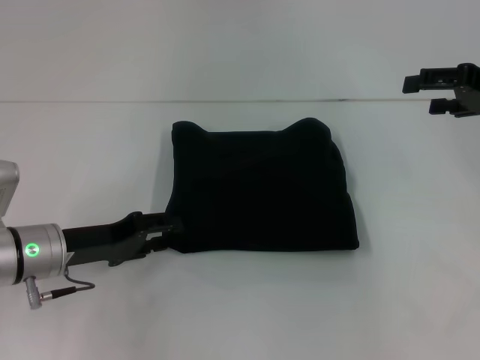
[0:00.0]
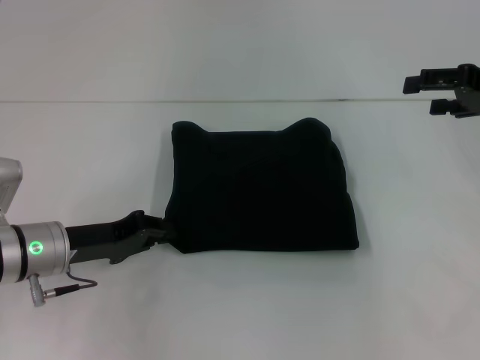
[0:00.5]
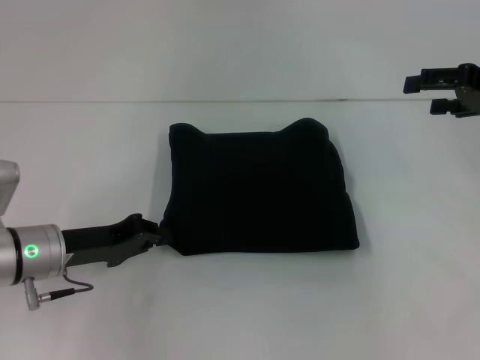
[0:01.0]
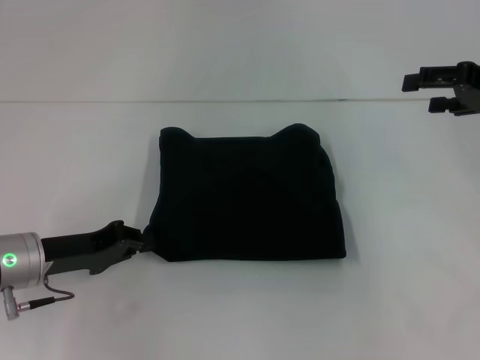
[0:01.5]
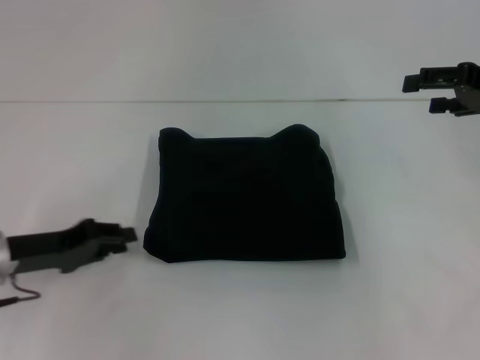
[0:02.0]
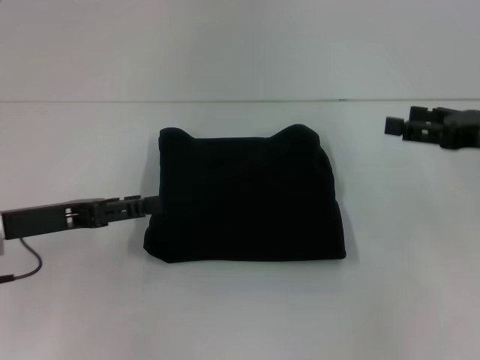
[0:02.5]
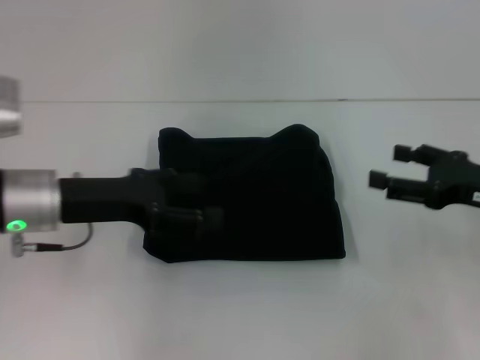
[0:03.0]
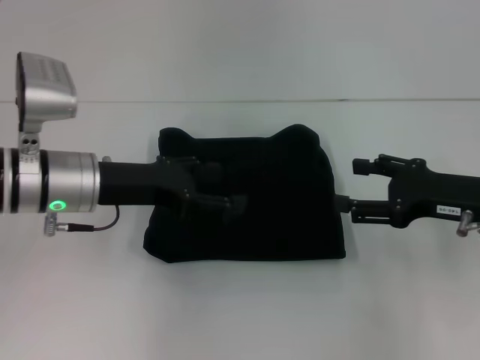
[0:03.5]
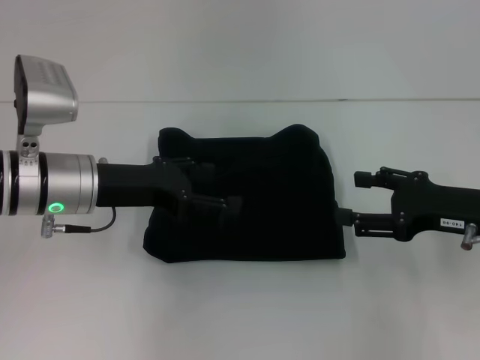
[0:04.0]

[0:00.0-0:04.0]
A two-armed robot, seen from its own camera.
0:00.0 to 0:02.0: The left gripper moves about 5 cm, and closes.
0:02.0 to 0:04.0: The left gripper moves to the right, upward and forward, some 10 cm, and opens its fingers. Meanwhile the right gripper heads downward, backward and to the left, covering about 15 cm.

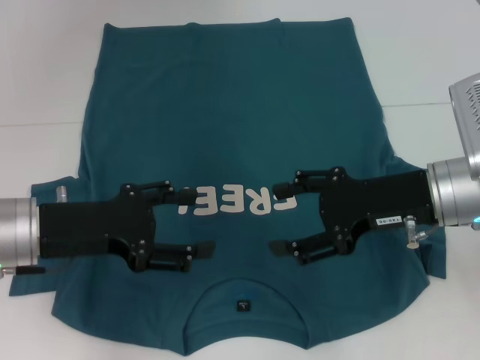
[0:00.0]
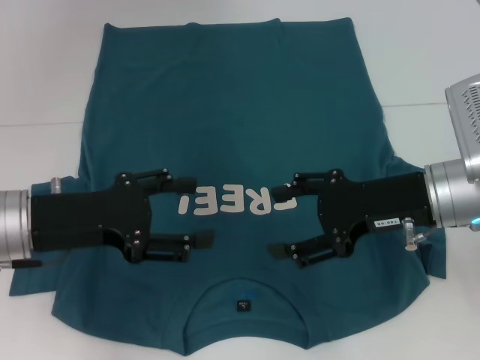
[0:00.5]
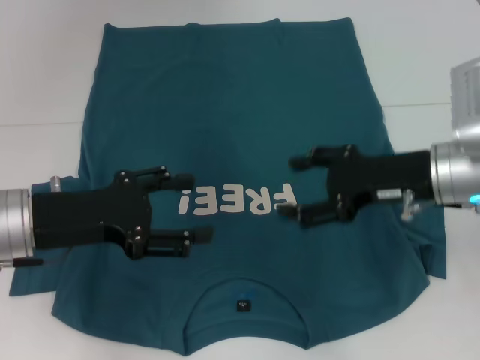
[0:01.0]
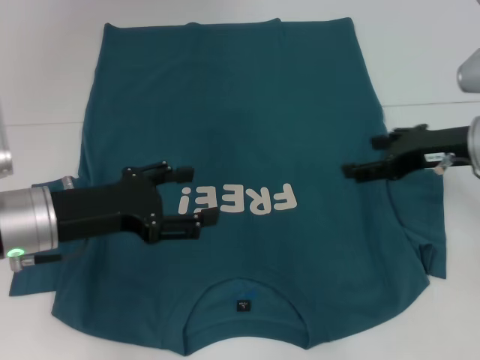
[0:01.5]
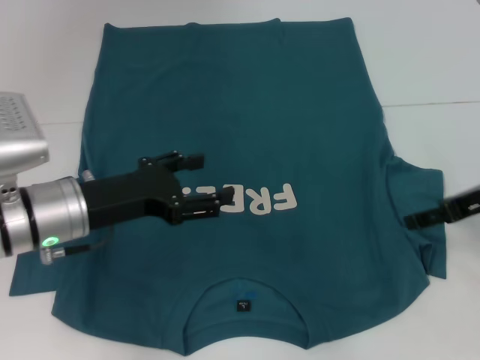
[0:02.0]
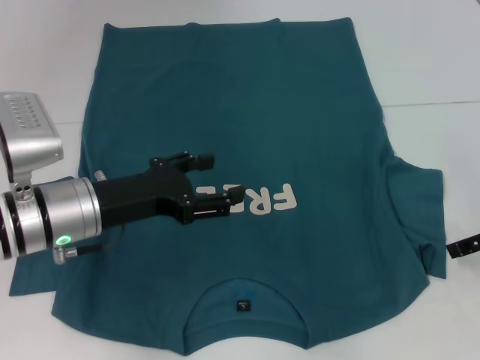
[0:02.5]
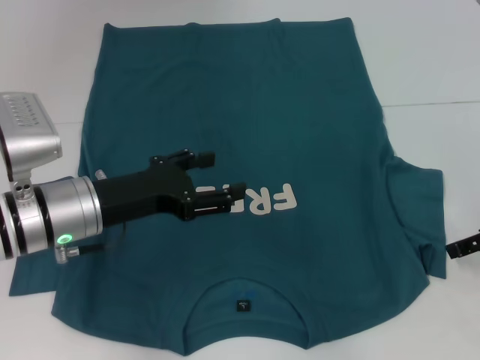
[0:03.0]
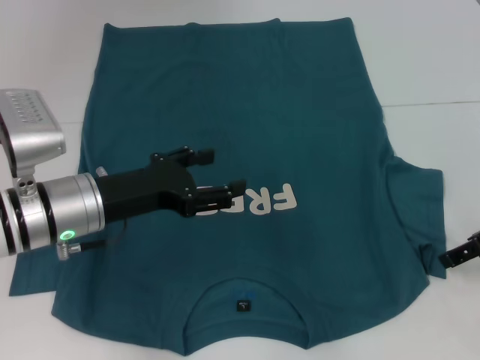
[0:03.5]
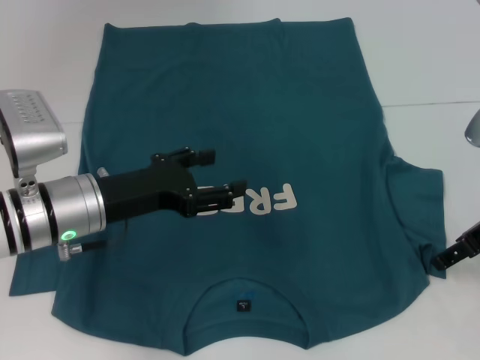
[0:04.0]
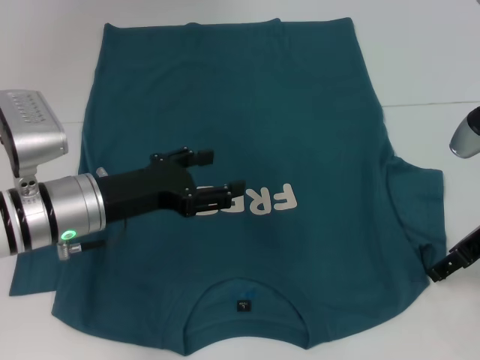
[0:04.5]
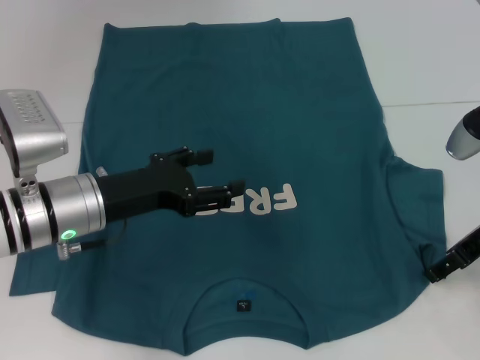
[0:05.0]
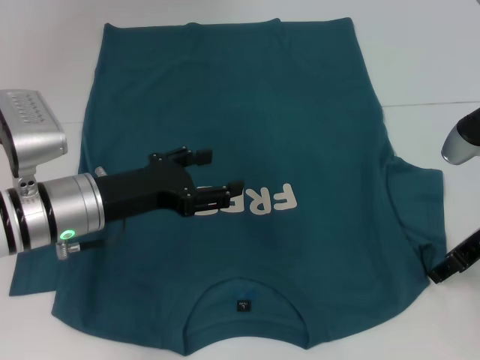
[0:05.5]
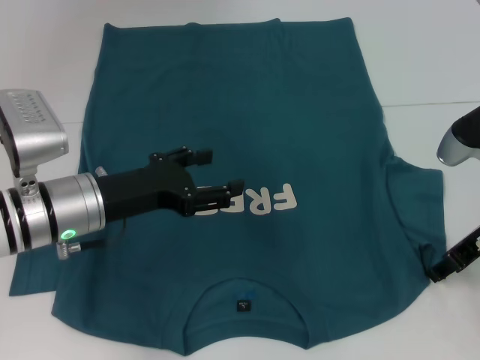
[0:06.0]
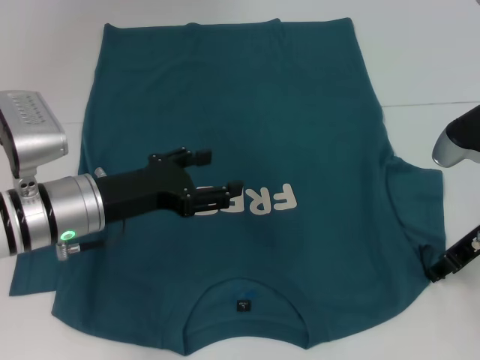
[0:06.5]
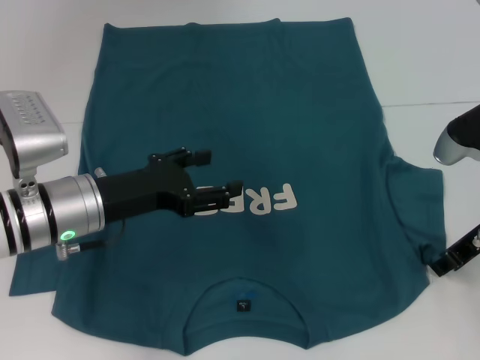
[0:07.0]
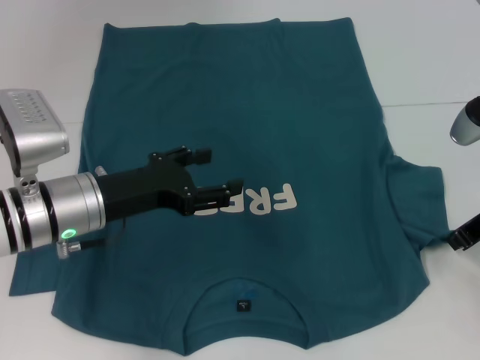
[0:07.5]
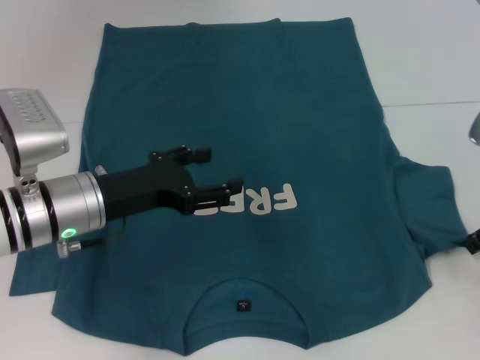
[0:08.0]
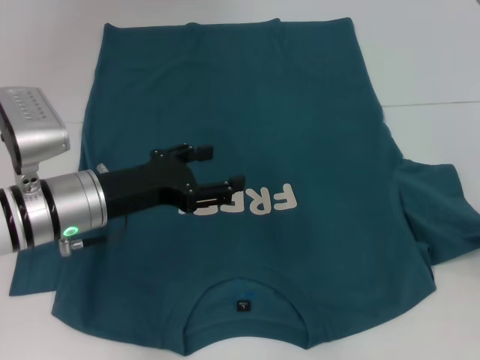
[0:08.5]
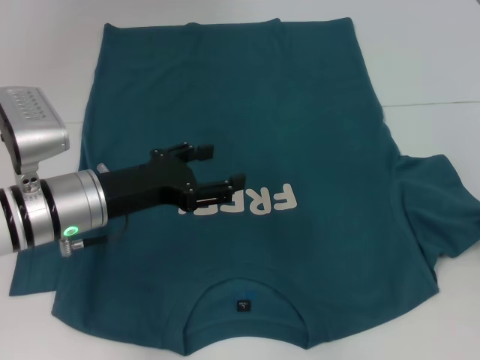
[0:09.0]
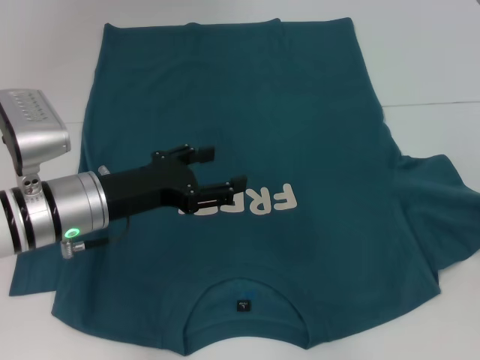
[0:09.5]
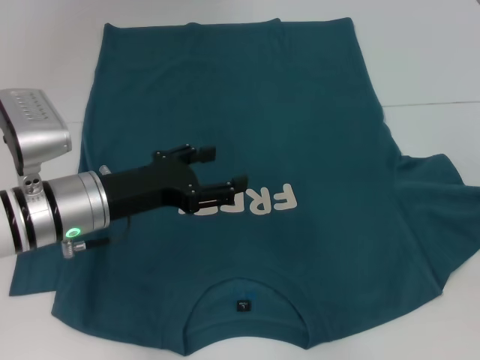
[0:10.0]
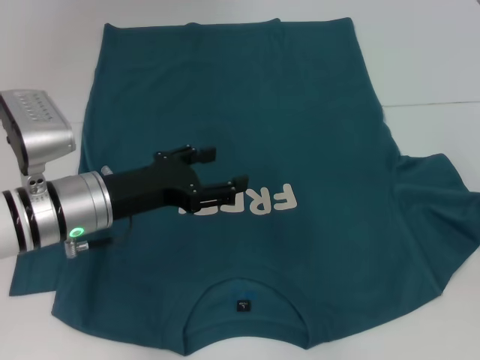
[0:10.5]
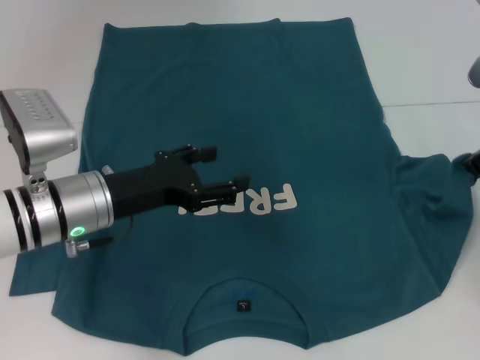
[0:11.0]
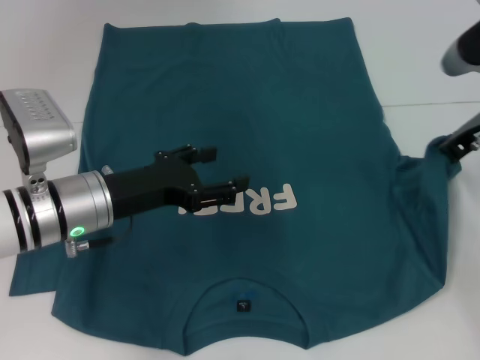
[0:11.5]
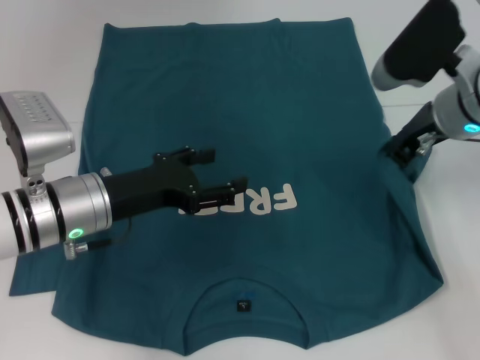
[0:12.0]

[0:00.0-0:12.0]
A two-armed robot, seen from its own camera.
0:00.0 to 0:02.0: The right gripper heads to the right, covering approximately 10 cm.
0:02.0 to 0:04.0: The grippers stay close to where they were, moving slightly.
0:04.0 to 0:06.0: The grippers move only a little.
0:06.0 to 0:08.0: The right gripper closes its fingers.
0:08.0 to 0:10.0: The right gripper shifts by approximately 5 cm.
0:10.0 to 0:12.0: The right gripper moves to the left, approximately 15 cm.

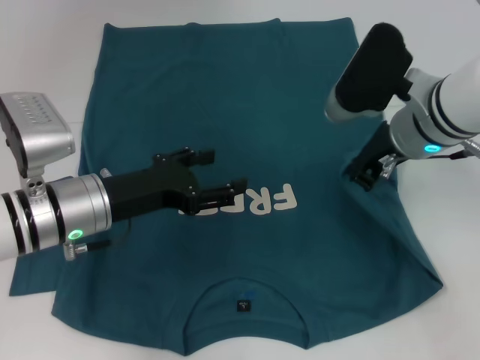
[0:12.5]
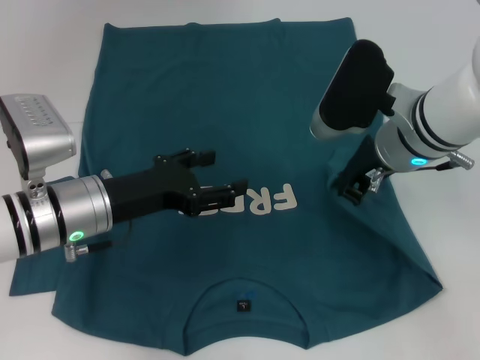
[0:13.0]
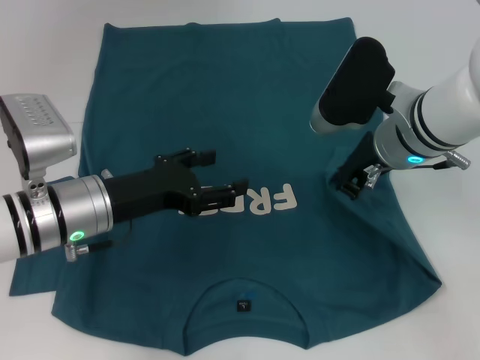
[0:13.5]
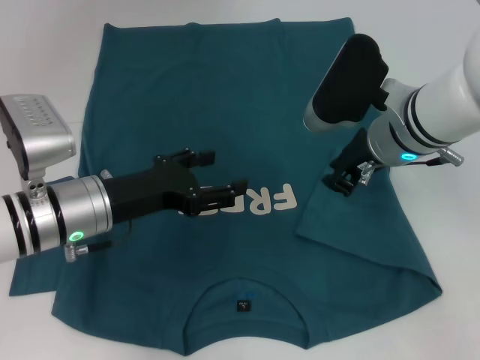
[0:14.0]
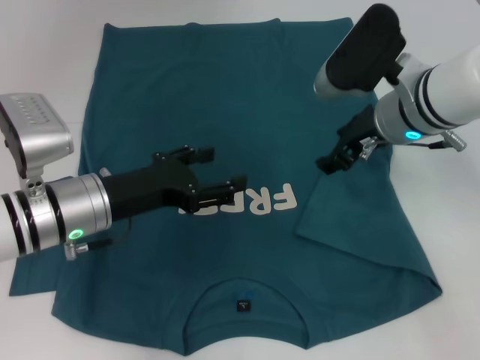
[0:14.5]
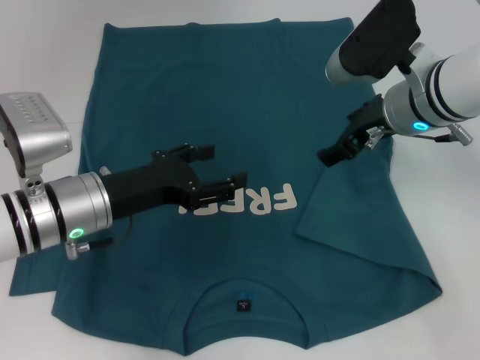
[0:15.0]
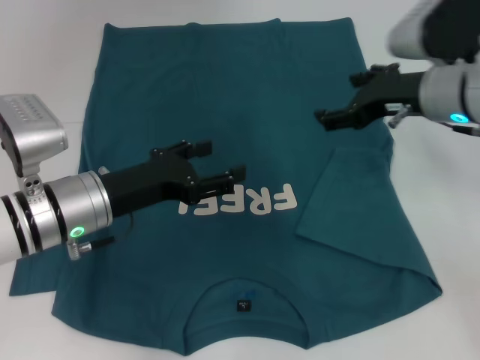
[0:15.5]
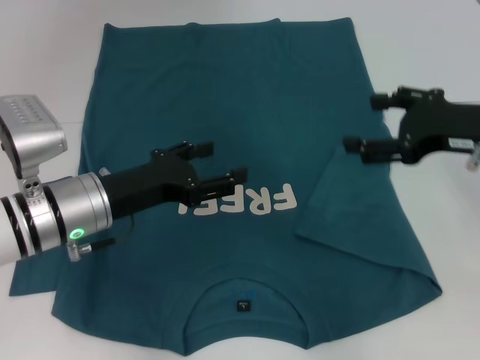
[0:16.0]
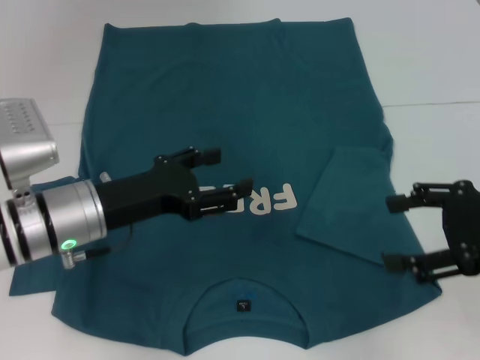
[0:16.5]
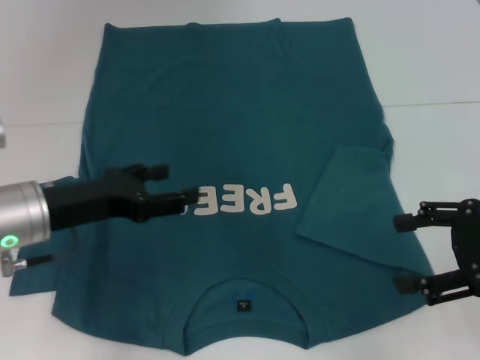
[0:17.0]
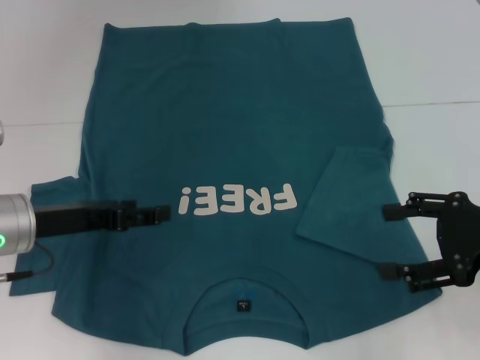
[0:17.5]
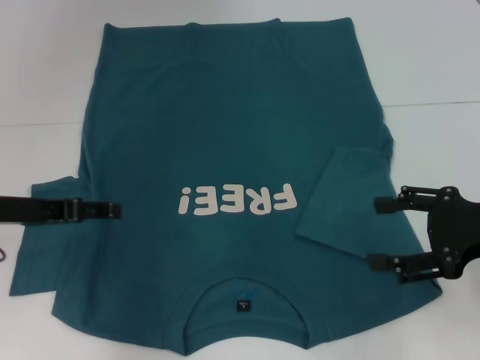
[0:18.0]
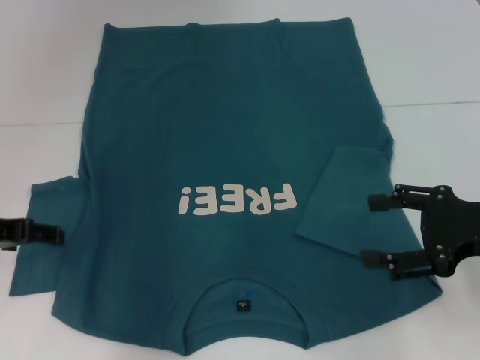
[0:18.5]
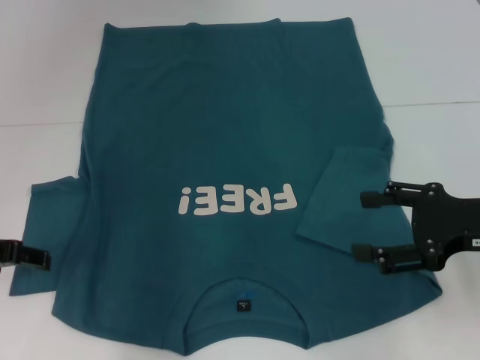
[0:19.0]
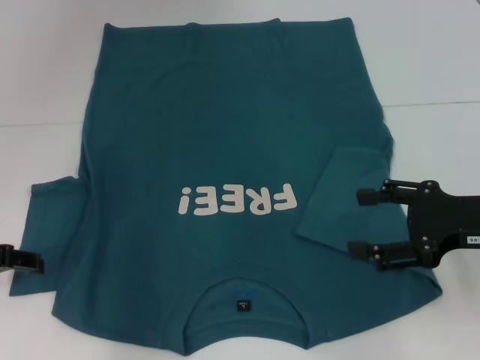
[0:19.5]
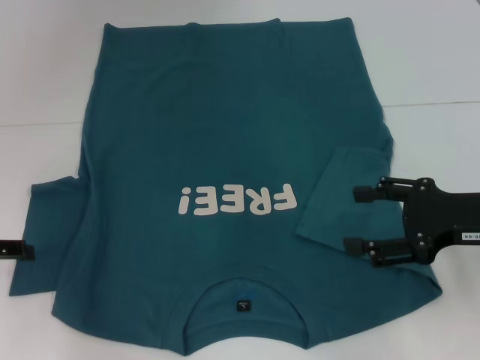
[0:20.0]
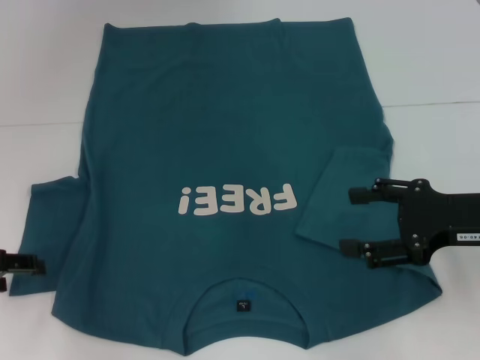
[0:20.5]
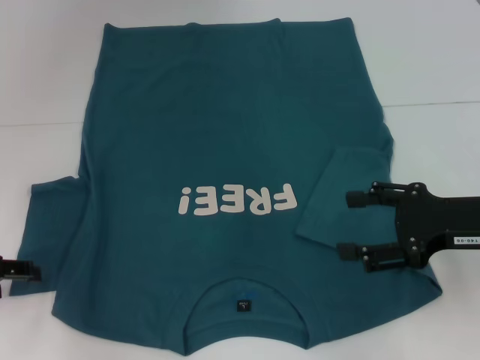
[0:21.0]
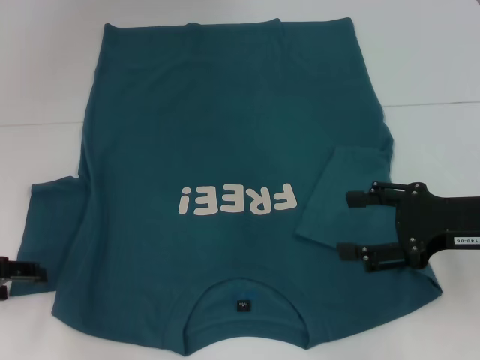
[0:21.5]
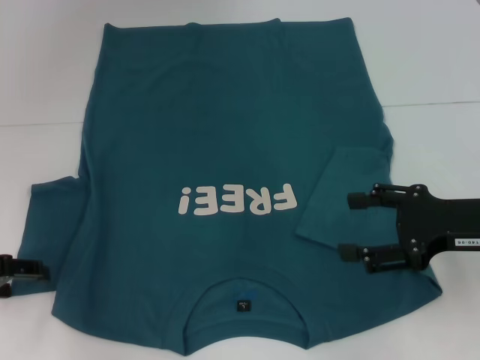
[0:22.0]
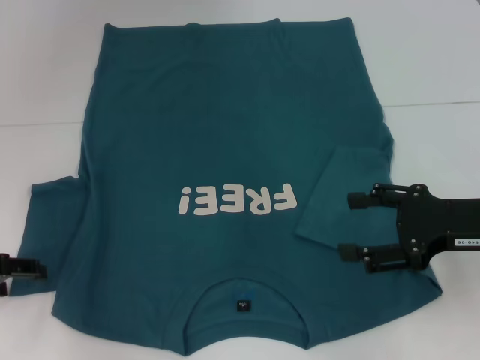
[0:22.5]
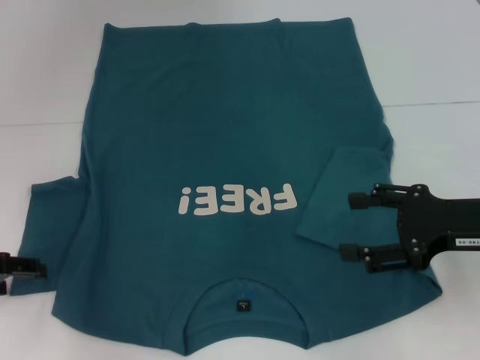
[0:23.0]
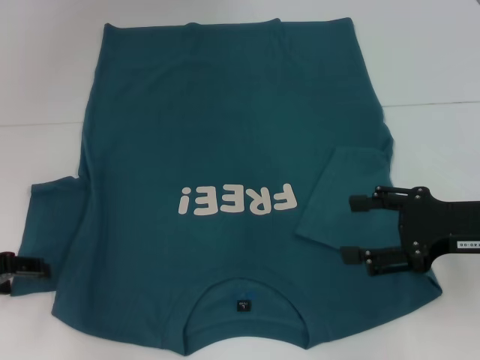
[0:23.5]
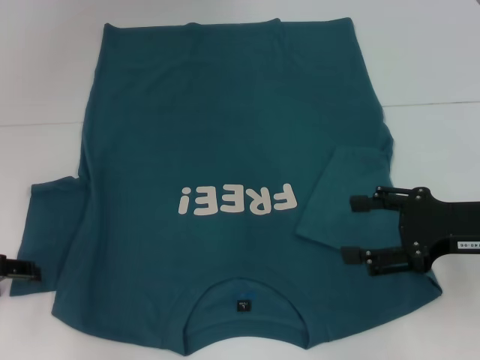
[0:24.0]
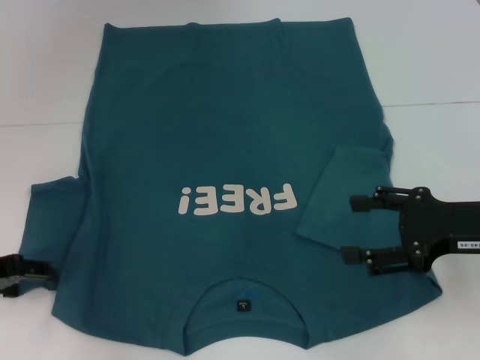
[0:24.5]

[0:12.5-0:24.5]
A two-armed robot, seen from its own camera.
Step, 0:12.5 to 0:14.5: Fold the bottom right sleeve to the right.
0:12.5 to 0:14.5: The right gripper opens.
0:14.5 to 0:16.5: The right gripper heads to the right and backward, covering roughly 20 cm, and opens up.
0:16.5 to 0:18.5: The left gripper heads to the left, covering about 10 cm.
0:18.5 to 0:20.5: The left gripper moves approximately 5 cm.
0:20.5 to 0:22.5: Neither gripper changes place.
0:22.5 to 0:24.5: Both grippers stay put.
